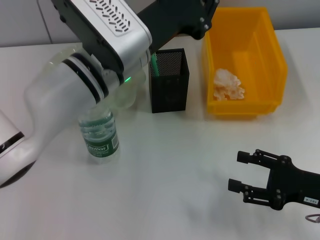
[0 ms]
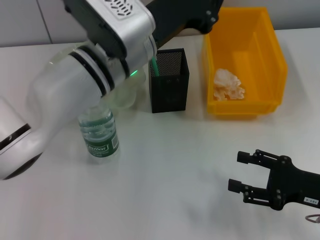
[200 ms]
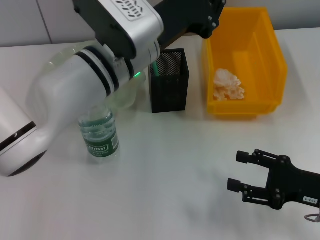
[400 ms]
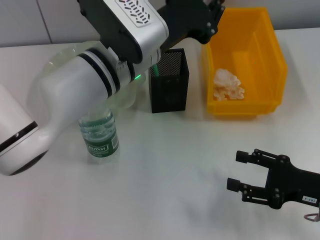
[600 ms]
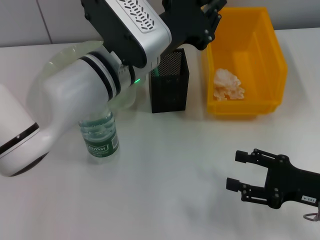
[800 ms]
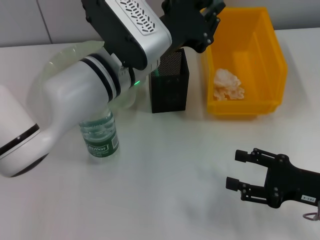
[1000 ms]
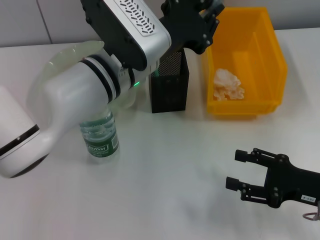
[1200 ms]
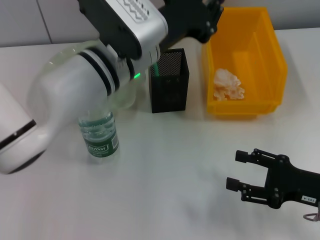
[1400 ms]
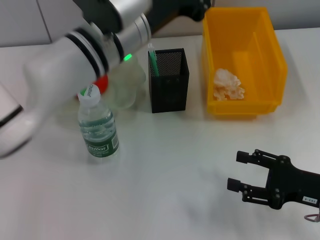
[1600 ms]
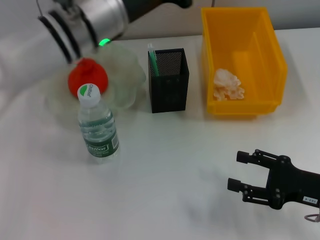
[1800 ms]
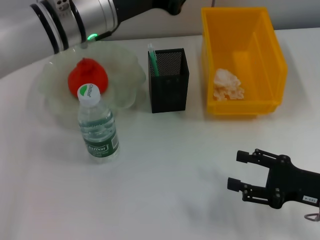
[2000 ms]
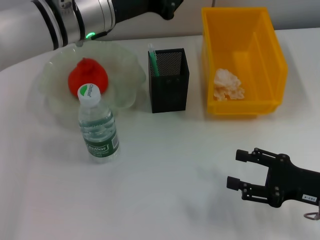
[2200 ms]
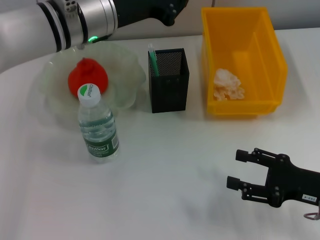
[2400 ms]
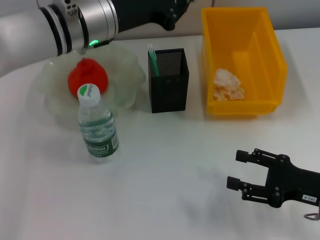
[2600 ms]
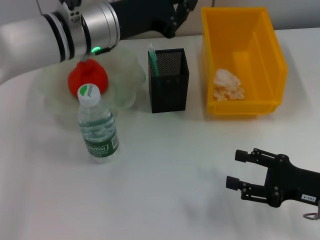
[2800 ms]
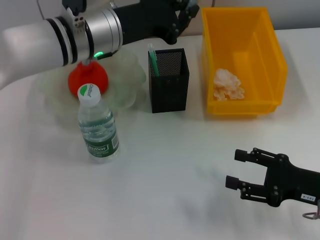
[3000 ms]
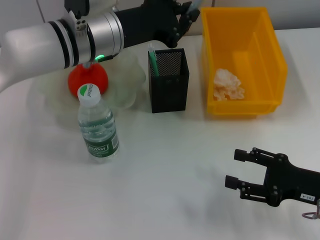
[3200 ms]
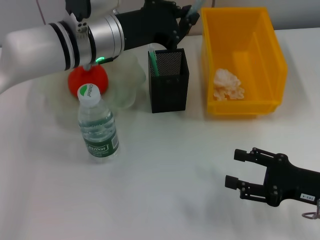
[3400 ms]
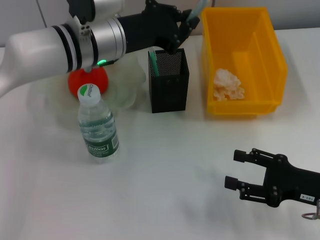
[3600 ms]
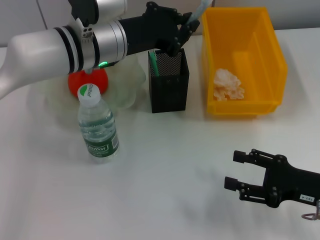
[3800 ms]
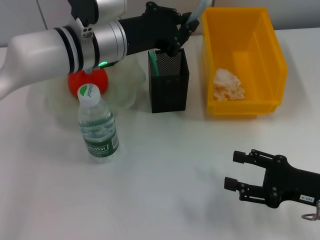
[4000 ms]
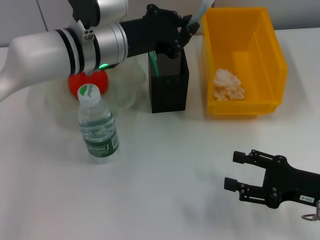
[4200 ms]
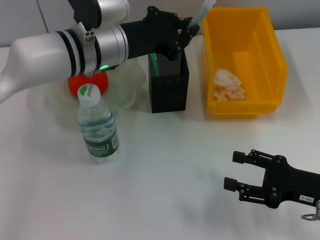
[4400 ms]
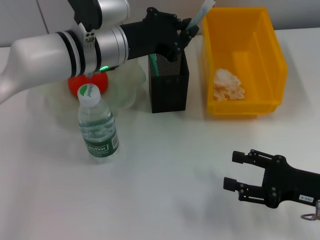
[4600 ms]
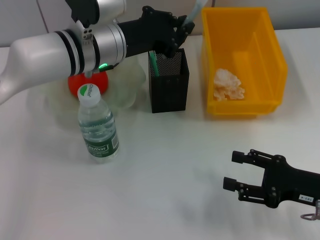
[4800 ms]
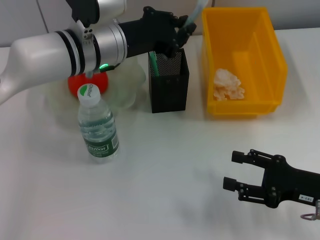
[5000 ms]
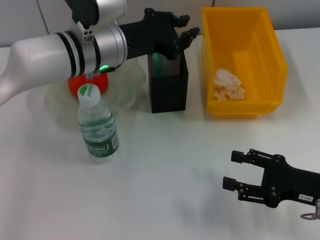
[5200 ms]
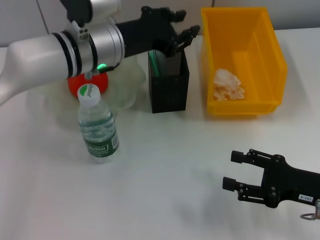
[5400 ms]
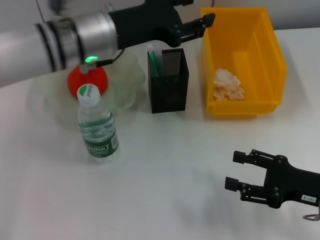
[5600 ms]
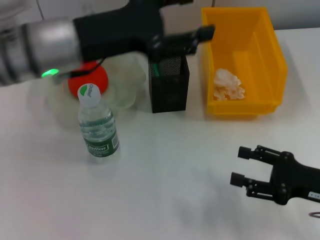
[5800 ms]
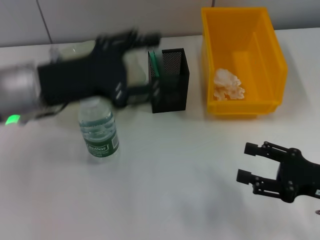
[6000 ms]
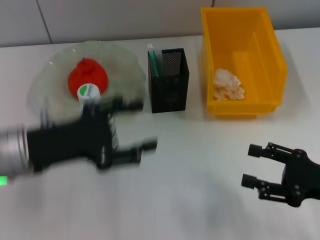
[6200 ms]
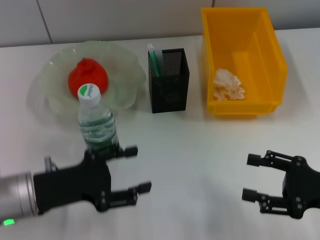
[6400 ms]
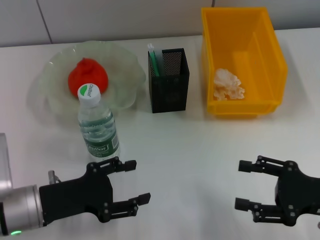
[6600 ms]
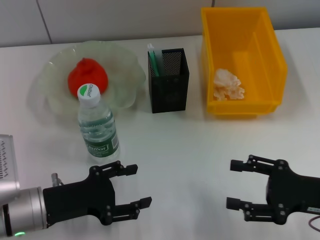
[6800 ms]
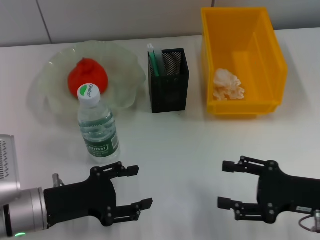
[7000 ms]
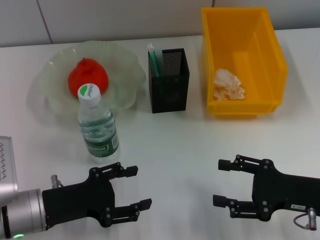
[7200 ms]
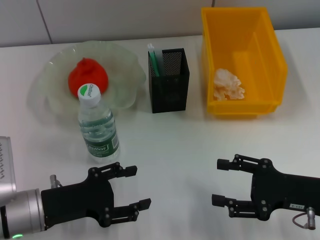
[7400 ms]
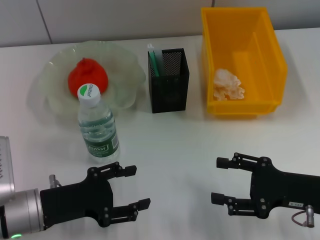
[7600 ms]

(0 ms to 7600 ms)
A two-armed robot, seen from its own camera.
Step, 0 ms - 5600 ms: Place the gray glue into the pen holder with the left hand.
0 ms - 1600 ms: There are only small adjustments of the grippers.
1600 ms - 3000 ms: The left gripper shifts by some 5 cm.
3000 ms - 4600 ms: The grippers make only small movements.
4600 ms - 6000 ms: The left gripper goes some 15 cm to the left and backward, and opens.
6000 ms - 7600 ms: The left gripper shifts some 15 cm downward and backward.

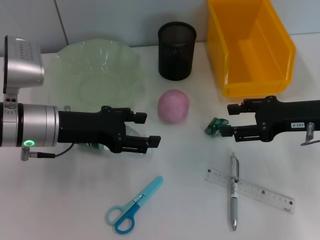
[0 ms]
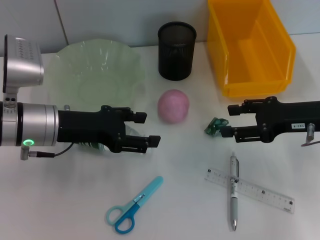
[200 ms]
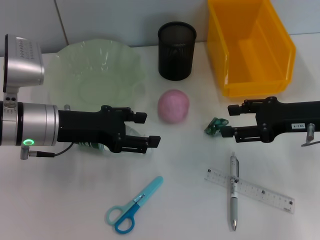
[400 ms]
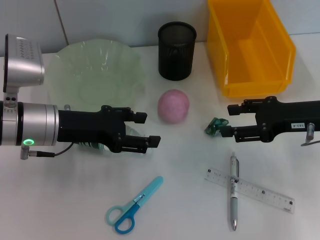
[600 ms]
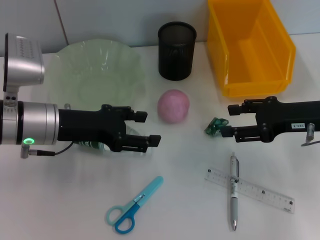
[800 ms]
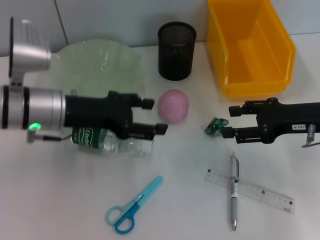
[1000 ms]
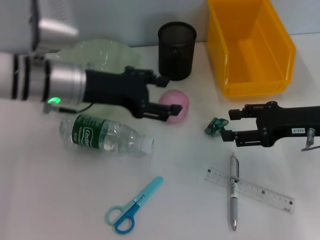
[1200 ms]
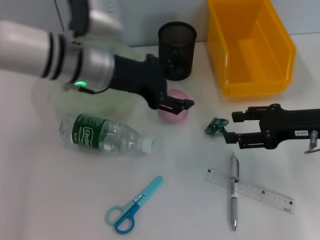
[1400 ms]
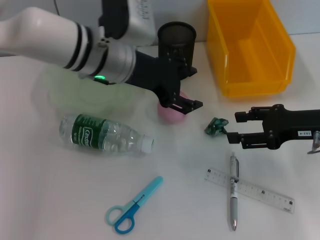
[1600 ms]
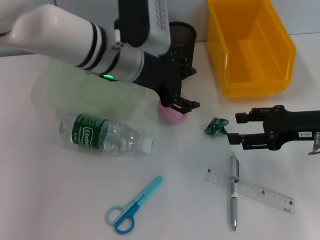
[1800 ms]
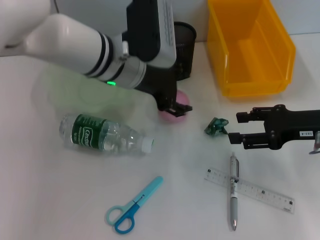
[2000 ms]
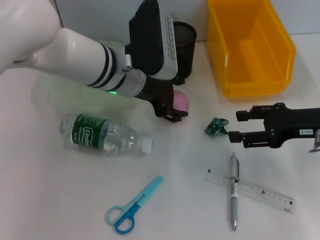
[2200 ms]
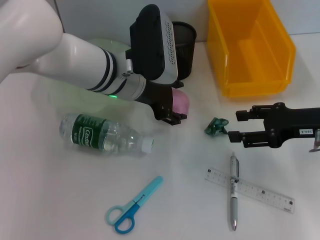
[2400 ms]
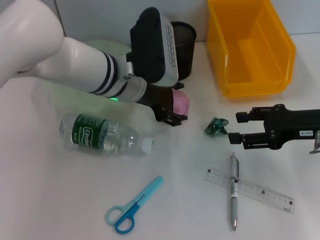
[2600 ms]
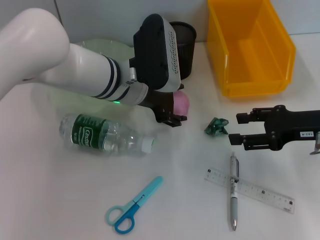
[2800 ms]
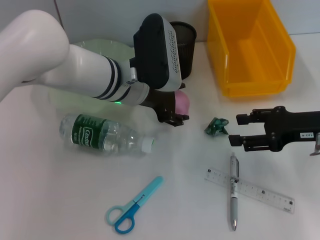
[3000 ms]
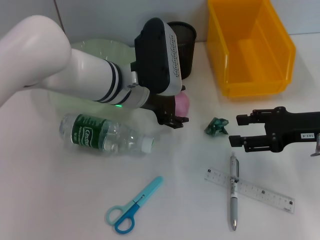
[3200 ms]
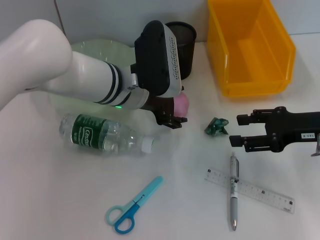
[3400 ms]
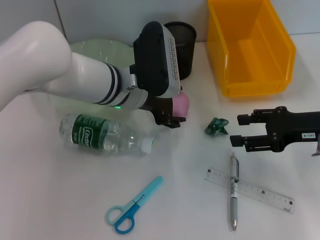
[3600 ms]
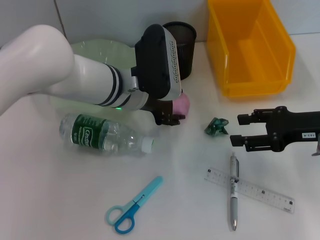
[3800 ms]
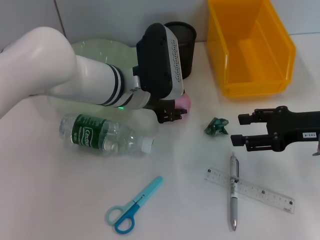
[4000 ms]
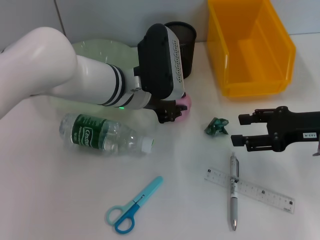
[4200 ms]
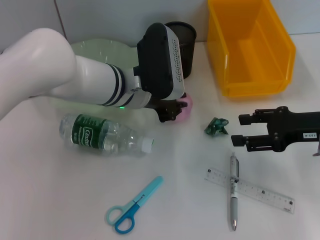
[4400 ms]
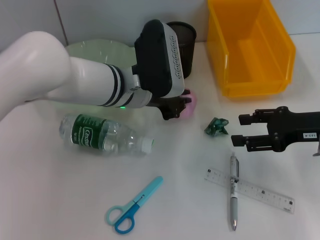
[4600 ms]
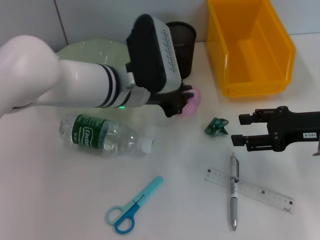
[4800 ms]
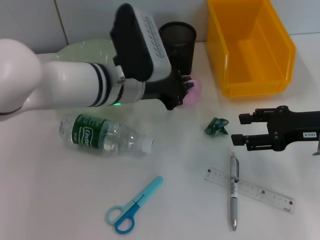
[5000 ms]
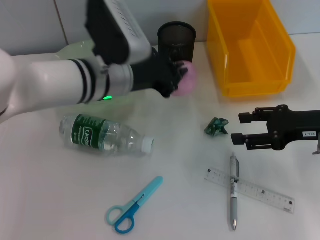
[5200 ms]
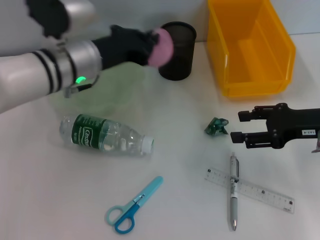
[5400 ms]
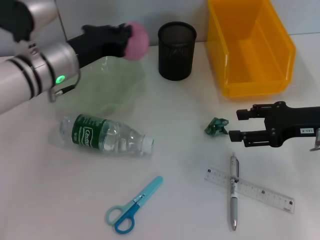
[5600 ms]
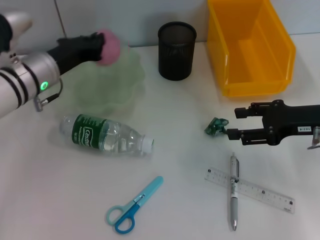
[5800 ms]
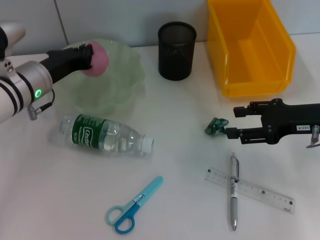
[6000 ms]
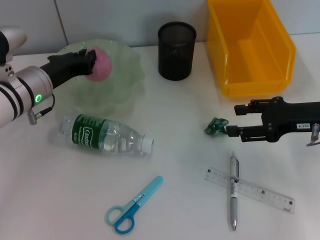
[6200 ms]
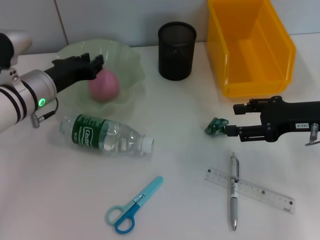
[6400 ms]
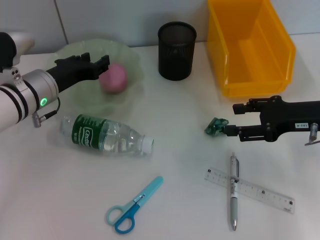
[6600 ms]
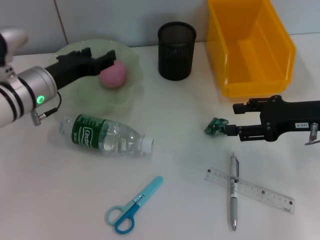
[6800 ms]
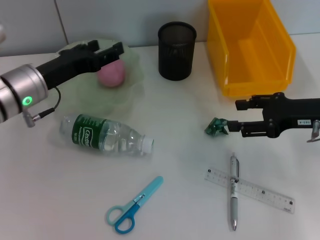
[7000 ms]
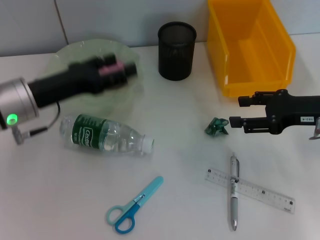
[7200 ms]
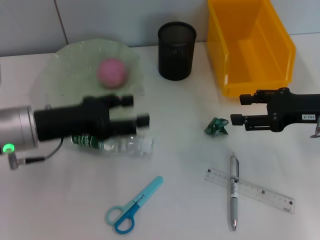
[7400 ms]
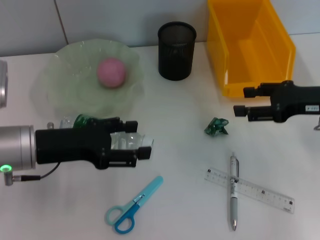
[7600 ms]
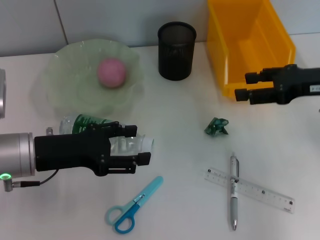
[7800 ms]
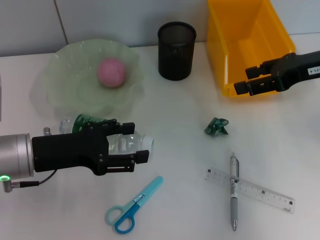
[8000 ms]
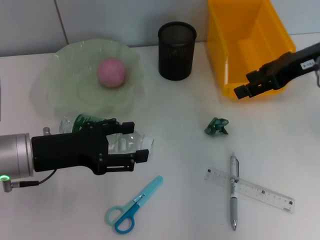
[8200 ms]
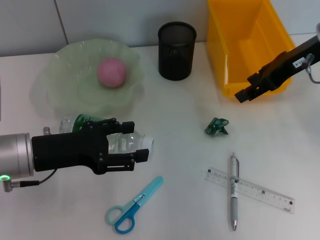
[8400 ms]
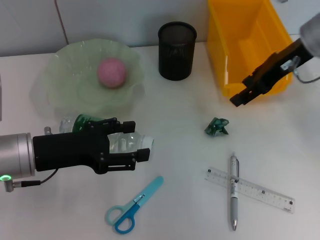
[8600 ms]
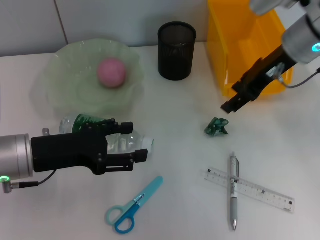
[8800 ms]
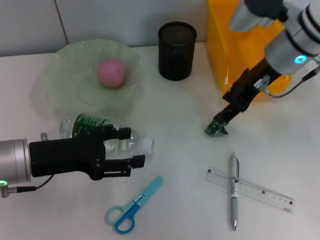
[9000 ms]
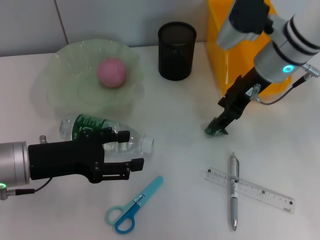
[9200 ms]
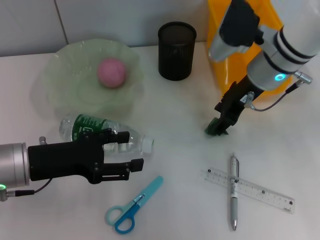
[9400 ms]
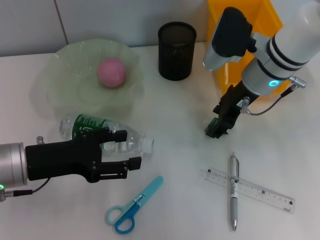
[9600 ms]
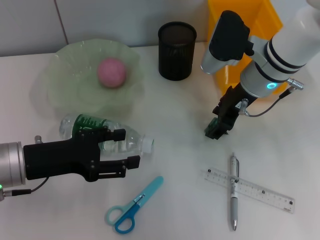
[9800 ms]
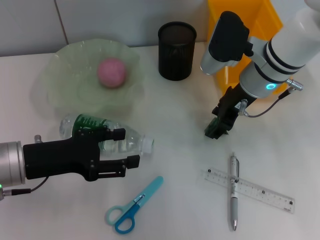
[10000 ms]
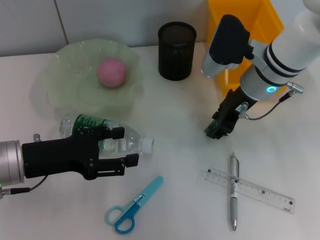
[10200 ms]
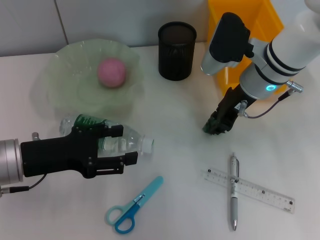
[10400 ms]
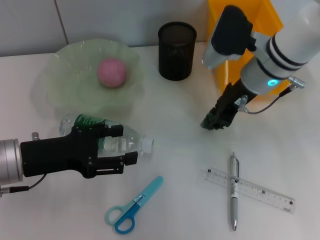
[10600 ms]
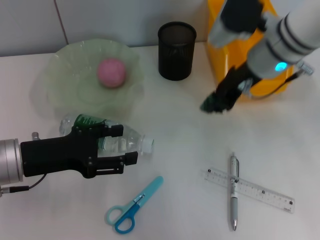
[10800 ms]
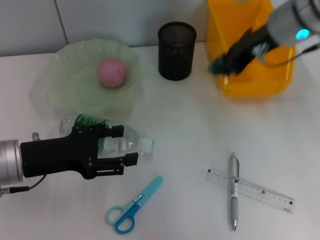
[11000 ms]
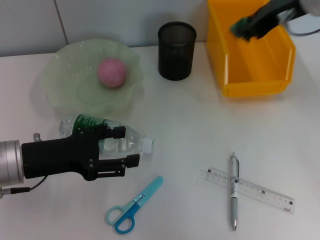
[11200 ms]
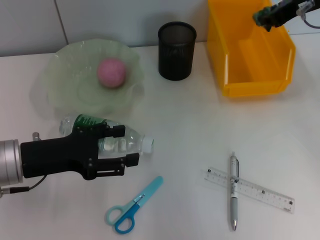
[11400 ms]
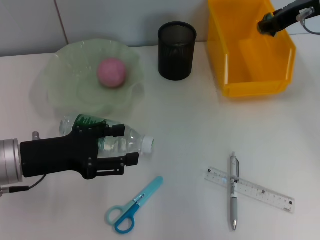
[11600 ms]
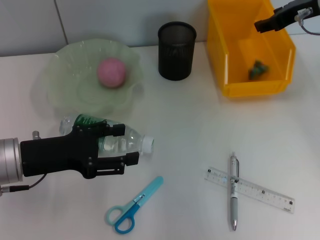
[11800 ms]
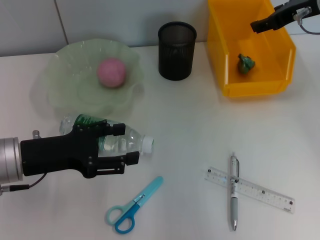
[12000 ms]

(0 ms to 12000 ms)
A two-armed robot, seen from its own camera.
Step, 0 ms - 4200 ms: Grab the peach with the left hand.
Step, 4400 ms - 7000 ms: Place the peach into the fruit bowl with the left hand.
Step, 7200 ms - 10000 ms: Grab the plastic with the right hand.
0 ms - 1600 ms: The left gripper is displaced to the right, upward and forward by some 15 cm.
1600 ms - 3000 ms: The left gripper moves roughly 5 cm.
3000 ms - 4400 ms: The left gripper closes its fingers.
4400 ms - 6000 ms: The left gripper goes about 15 cm to the left.
6000 ms - 7600 ms: The left gripper shifts approximately 10 cm backward, and opens up.
7600 ms - 9000 ms: The right gripper shifts approximately 15 cm to the left, forward and upward.
9000 ms - 10400 ms: The right gripper moves about 5 cm.
10400 ms - 12000 ms: The right gripper is displaced to the right and upward by roughly 15 cm, and closes and opens again.

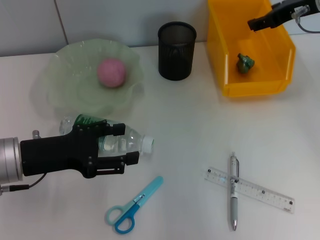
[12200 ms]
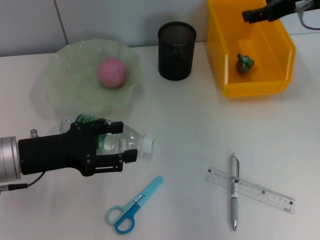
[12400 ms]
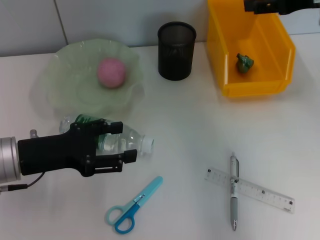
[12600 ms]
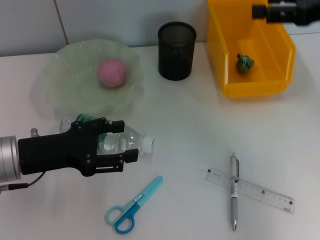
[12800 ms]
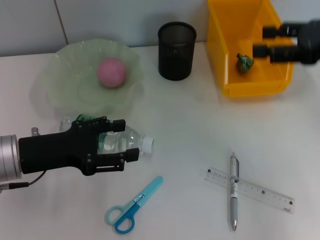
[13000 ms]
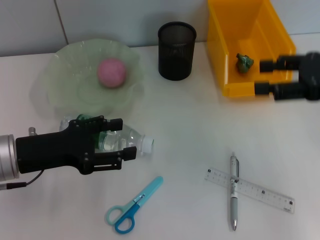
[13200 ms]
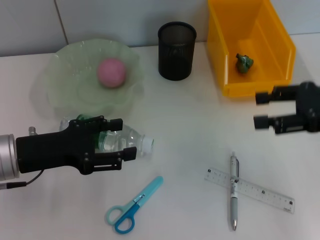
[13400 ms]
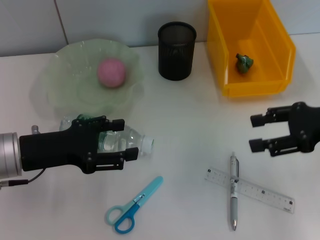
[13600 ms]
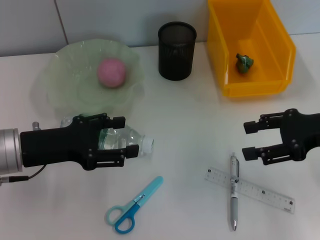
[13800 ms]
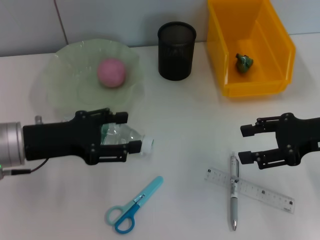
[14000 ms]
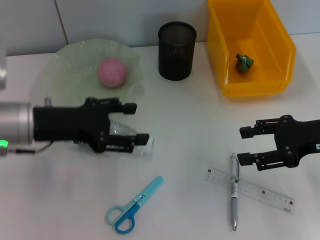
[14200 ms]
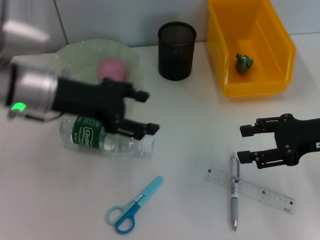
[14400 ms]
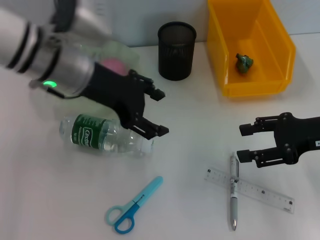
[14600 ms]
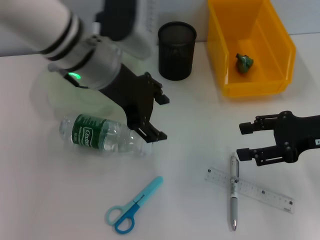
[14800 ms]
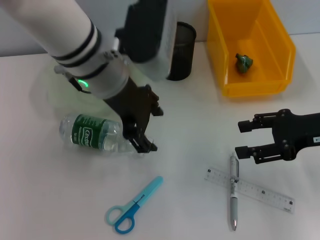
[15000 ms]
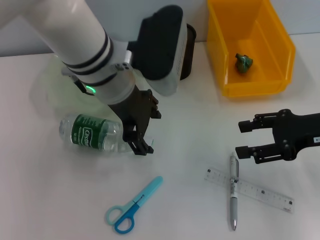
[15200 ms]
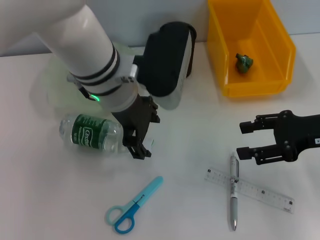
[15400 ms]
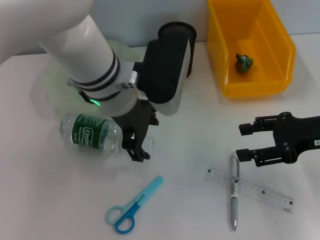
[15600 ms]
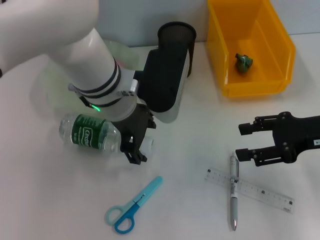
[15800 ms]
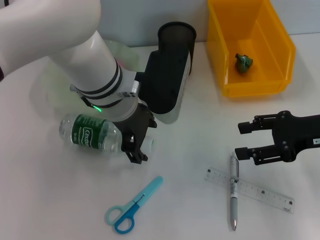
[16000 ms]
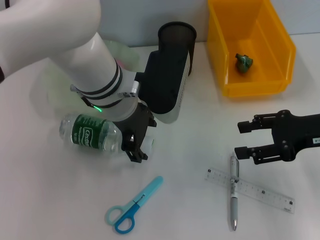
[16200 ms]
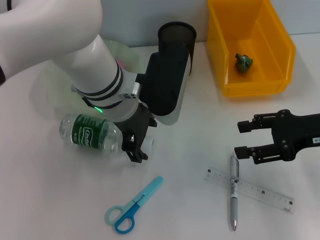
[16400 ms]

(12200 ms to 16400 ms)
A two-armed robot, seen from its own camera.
12200 ms - 13600 ms: The right gripper travels backward and downward by some 15 cm.
13600 ms - 15000 ms: The left gripper moves to the right, upward and forward, some 20 cm.
15000 ms - 16400 ms: The left gripper changes place by some 5 cm.
